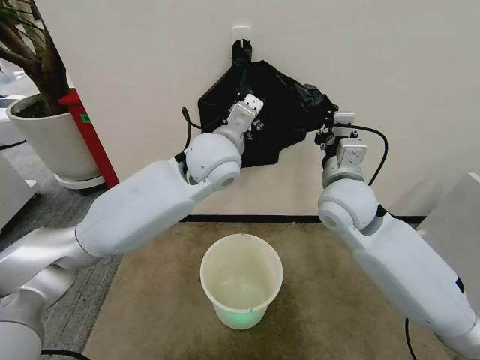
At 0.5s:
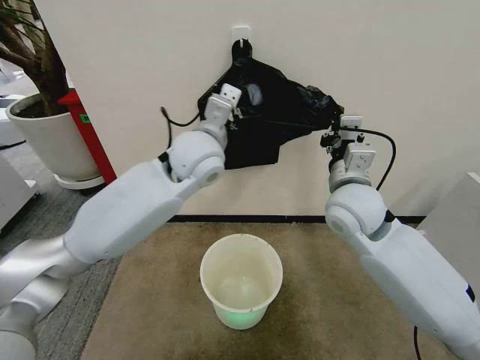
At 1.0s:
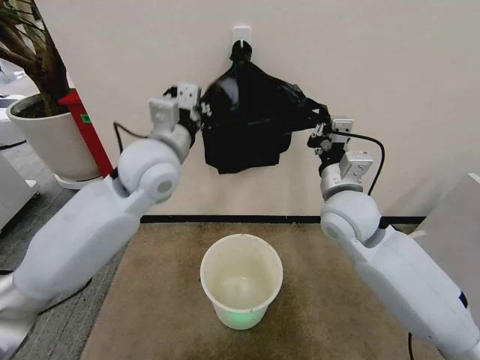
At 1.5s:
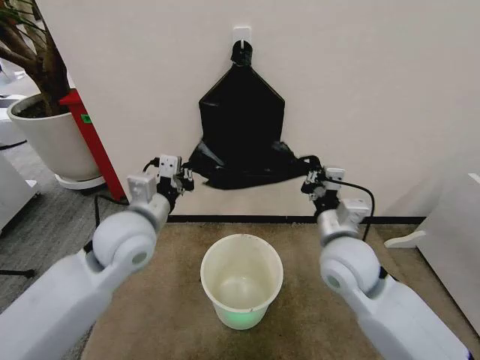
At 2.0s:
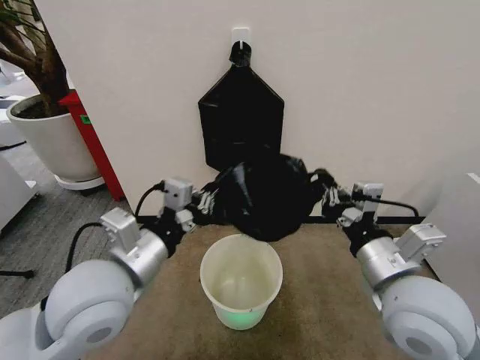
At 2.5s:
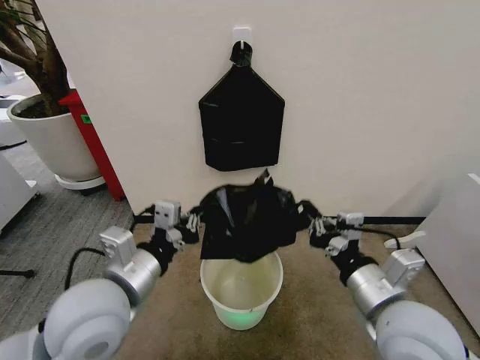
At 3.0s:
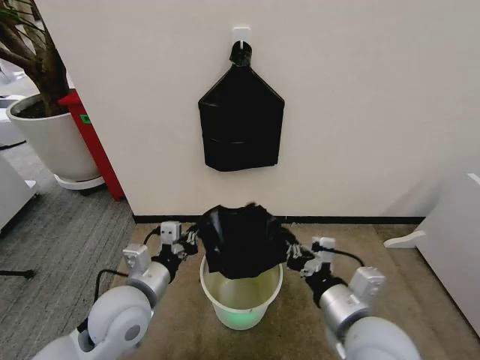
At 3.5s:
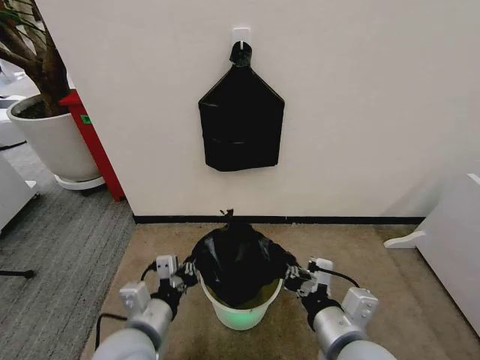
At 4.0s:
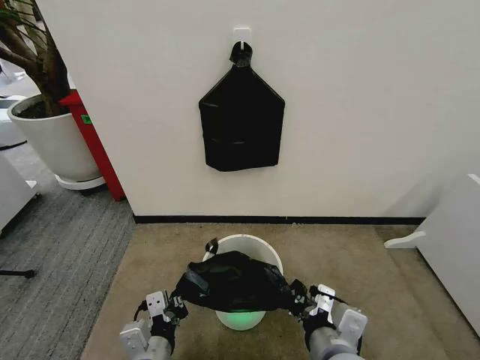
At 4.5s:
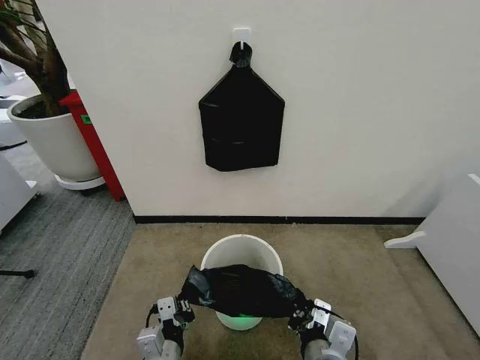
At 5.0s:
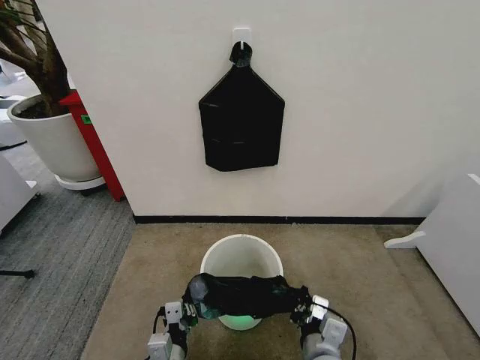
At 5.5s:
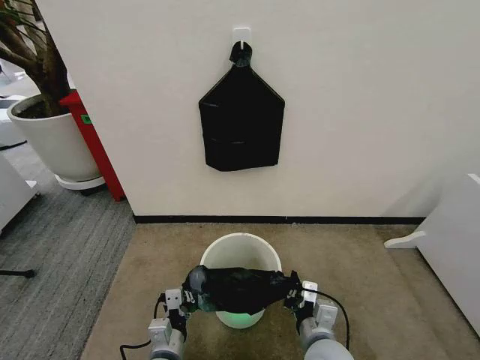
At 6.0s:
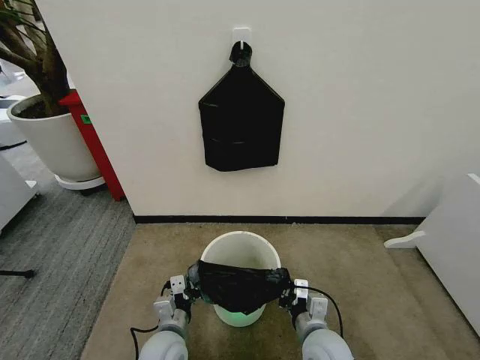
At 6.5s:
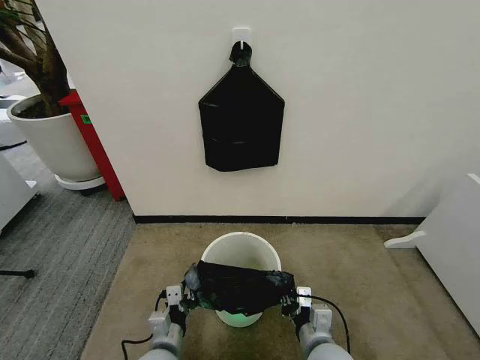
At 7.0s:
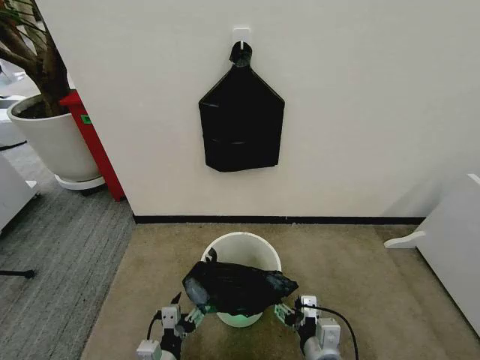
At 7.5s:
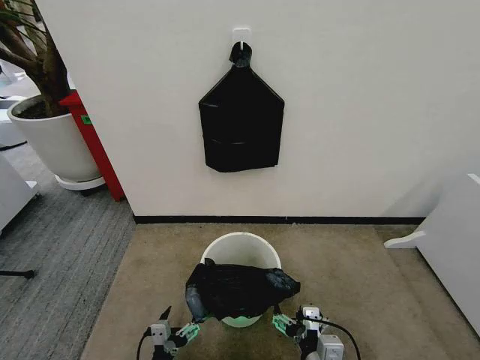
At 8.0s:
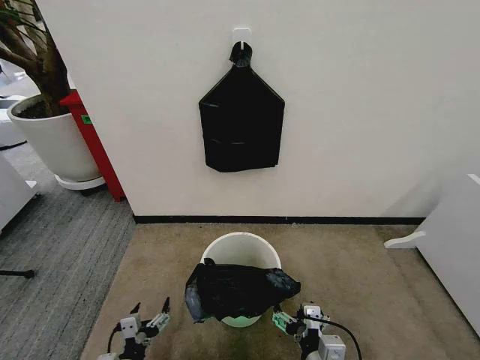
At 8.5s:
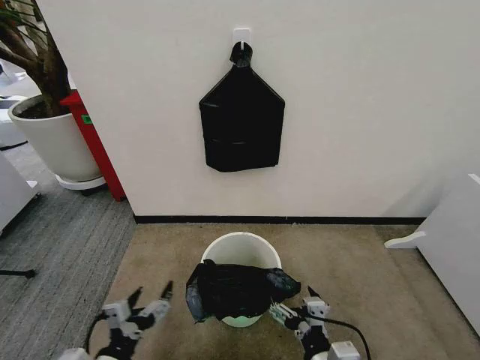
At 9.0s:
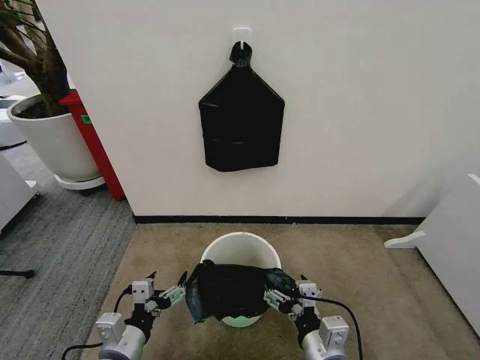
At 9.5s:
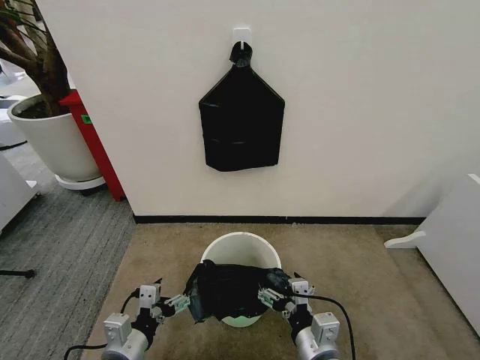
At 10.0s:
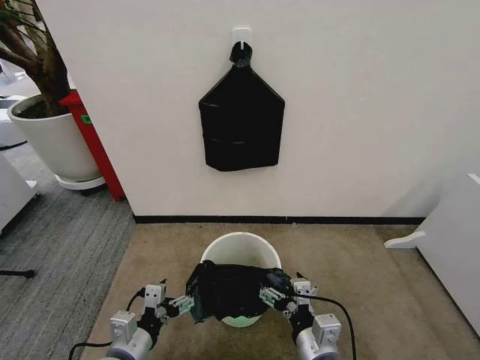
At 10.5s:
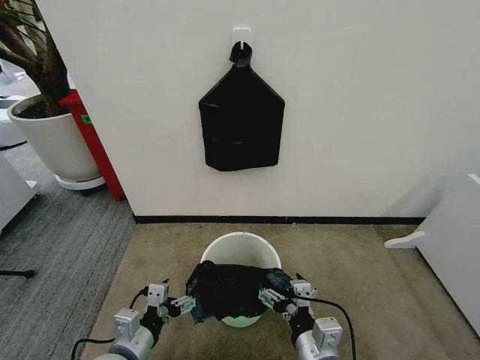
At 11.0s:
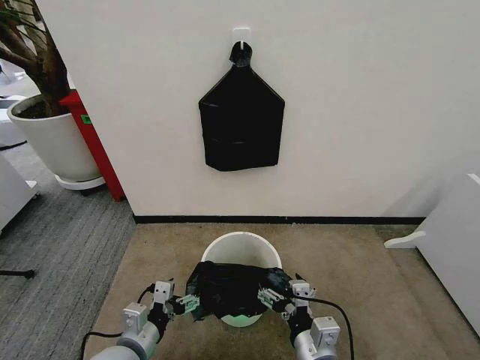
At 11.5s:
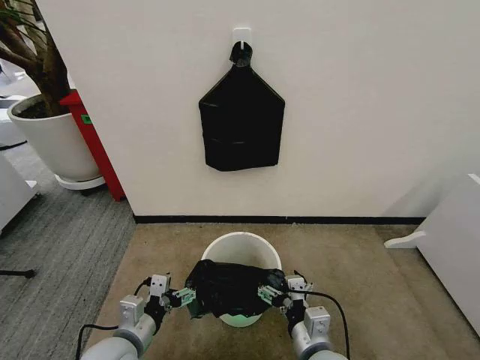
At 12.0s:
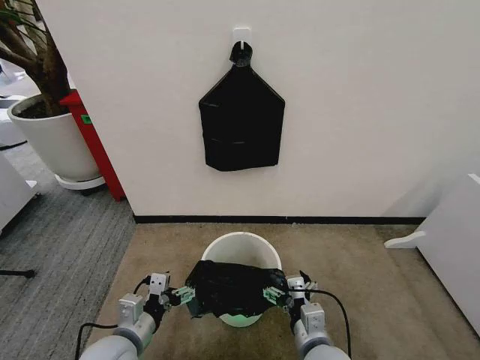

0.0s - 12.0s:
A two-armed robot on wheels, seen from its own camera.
Task of the whole recording: Place the garbage bag over the trash bin.
0.0s - 2.0s: The right gripper goes approximately 20 cm backward; the left gripper moves backward and to the left, roughly 25 cm, and closes.
2.0s - 4.0s: The left gripper moves downward and backward, some 20 cm. The right gripper travels downward, to the left and backward by about 15 cm.
4.0s - 6.0s: The grippers both shift downward and forward by about 15 cm.
6.0s - 8.0s: The left gripper travels backward and to the left by some 15 cm, and opens, while the right gripper goes roughly 10 cm backward, and opens up.
8.0s - 10.0s: The left gripper goes roughly 15 cm upward, while the right gripper moves roughly 5 cm.
10.0s - 12.0s: The grippers make only small movements.

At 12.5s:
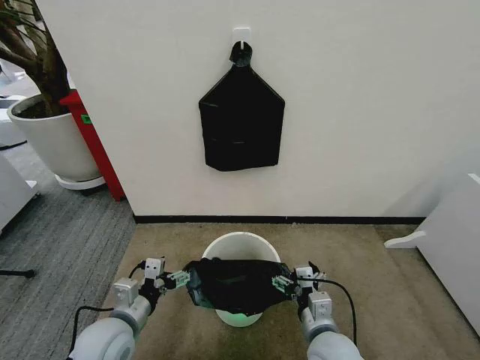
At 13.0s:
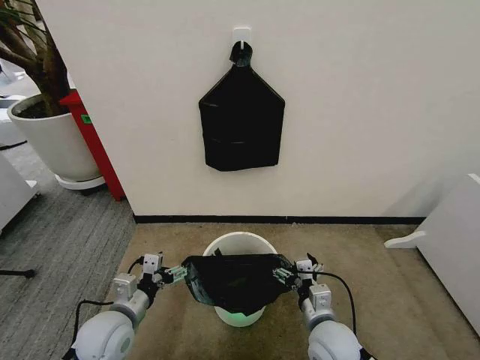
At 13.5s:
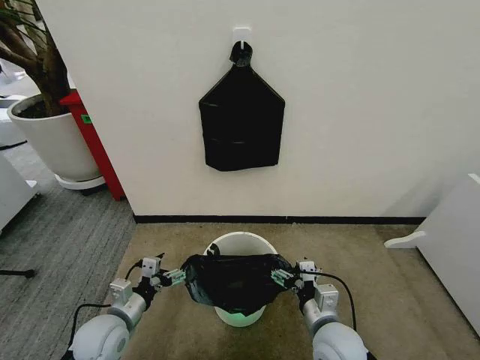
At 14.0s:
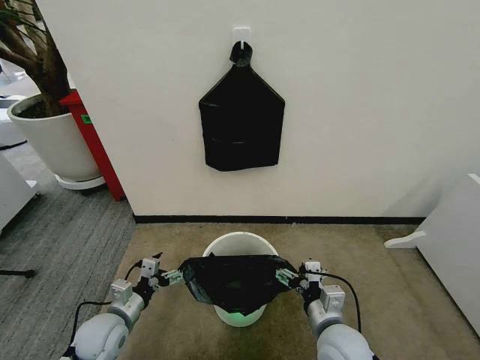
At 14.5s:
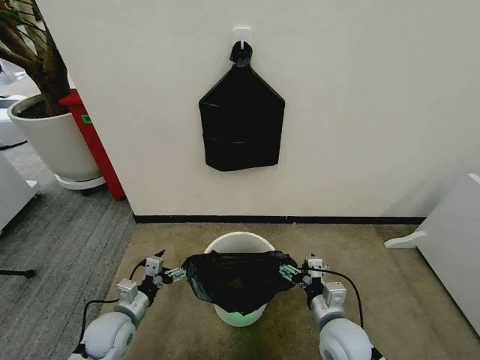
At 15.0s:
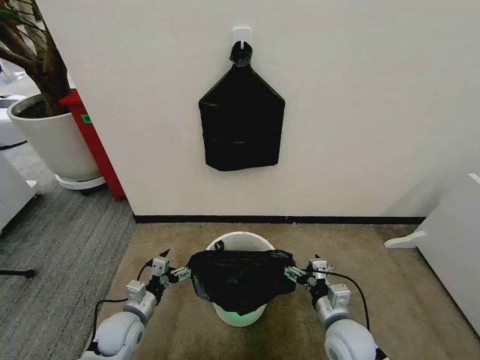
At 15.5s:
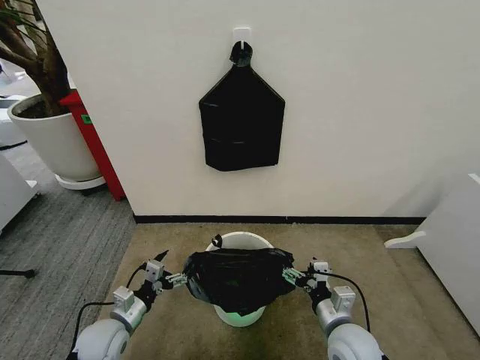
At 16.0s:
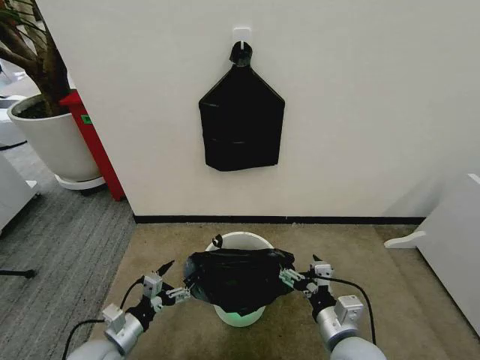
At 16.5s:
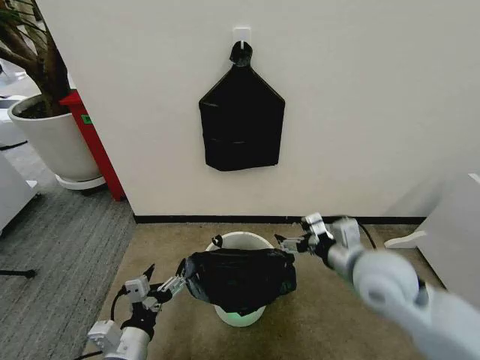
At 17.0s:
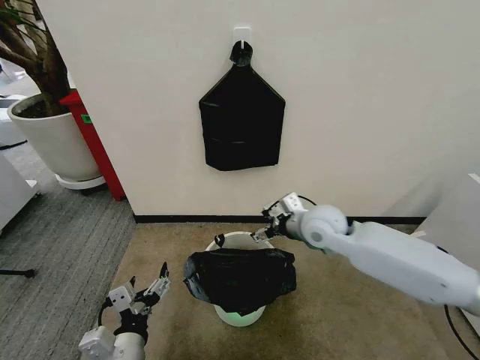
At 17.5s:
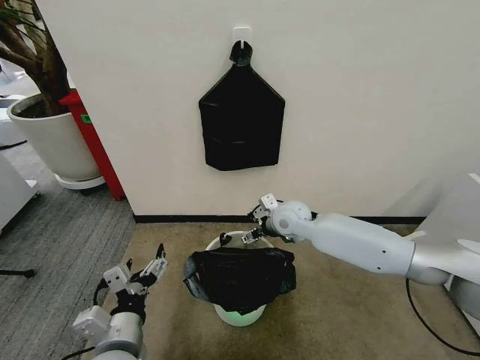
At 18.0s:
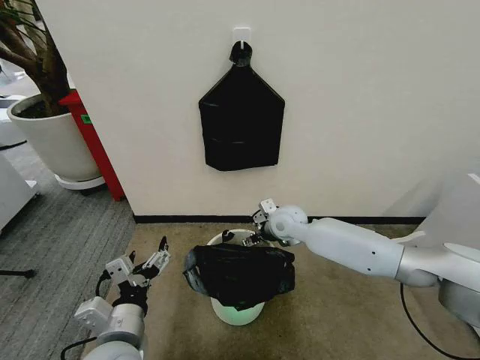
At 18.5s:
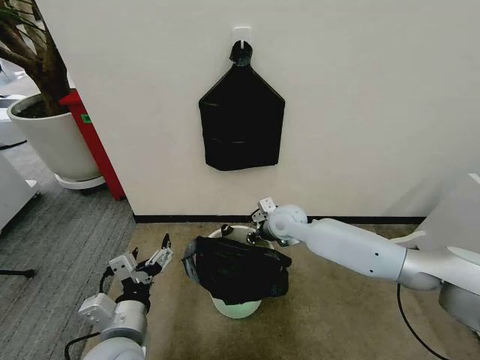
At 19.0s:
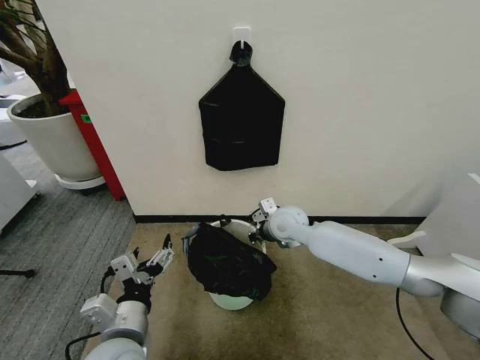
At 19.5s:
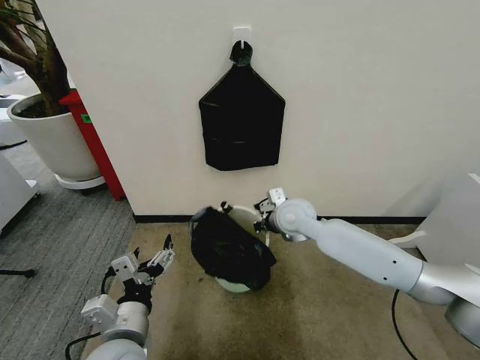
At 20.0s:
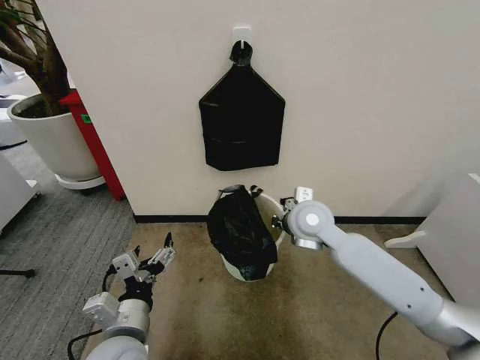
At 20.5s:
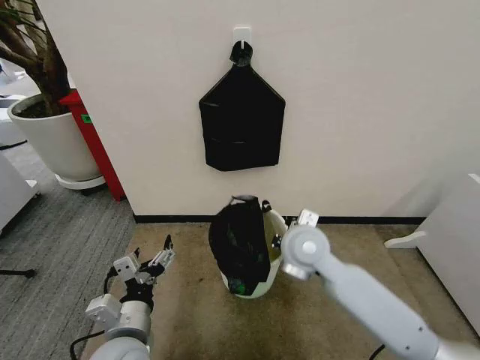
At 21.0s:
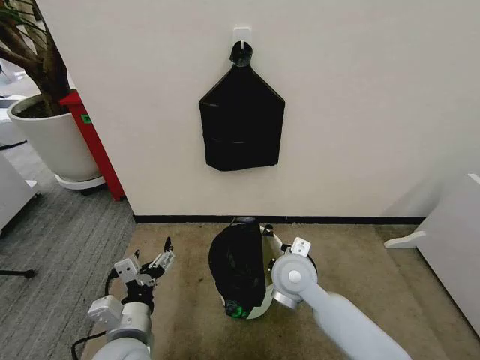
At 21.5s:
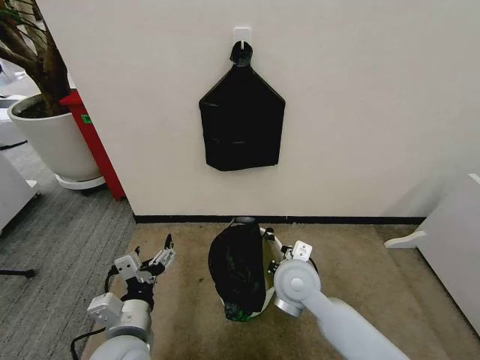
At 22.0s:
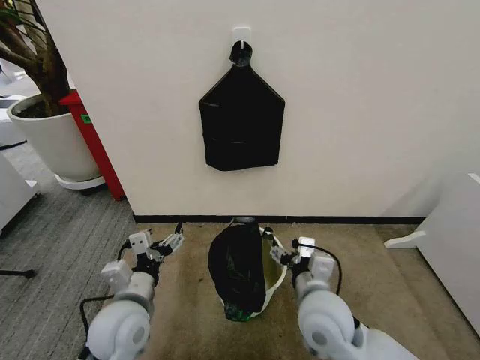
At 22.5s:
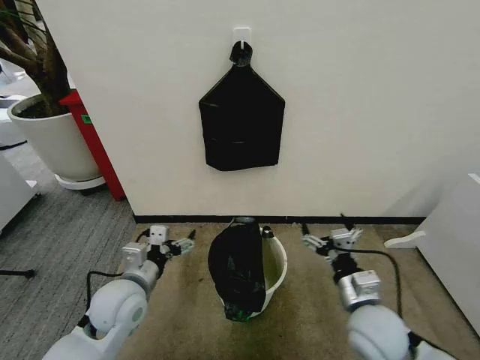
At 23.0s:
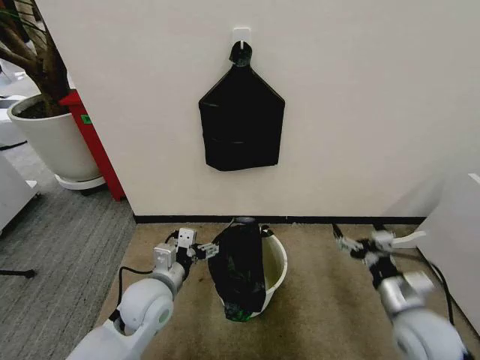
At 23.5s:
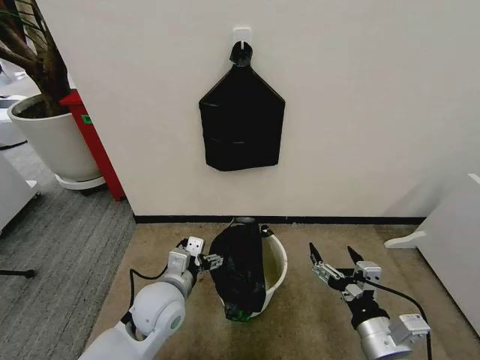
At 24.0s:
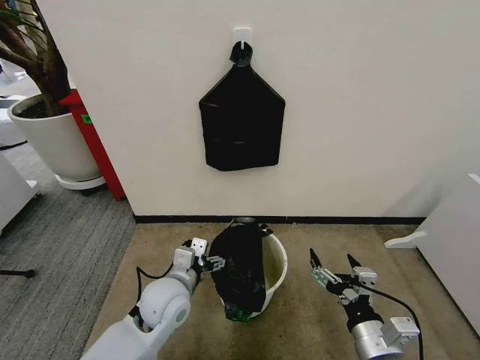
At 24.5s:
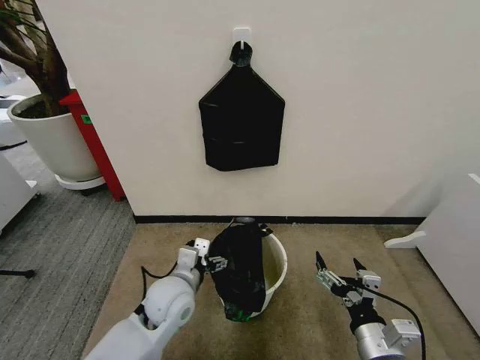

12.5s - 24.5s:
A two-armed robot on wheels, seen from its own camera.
Task of the whole recording: Place the garbage bag over the trash bin.
12.5s - 14.5s: The left gripper travels downward by roughly 10 cm. Meanwhile the right gripper moves approximately 5 cm.
14.5s - 16.5s: The left gripper shifts roughly 15 cm backward, upward and to the right. The right gripper shifts approximately 20 cm upward.
16.5s - 18.5s: The left gripper travels upward by roughly 5 cm; the right gripper heads forward, to the left and downward, covering approximately 25 cm, and closes its fingers.
18.5s - 20.5s: The right gripper goes about 15 cm backward and upward.
20.5s - 22.5s: The right gripper moves backward, to the right and downward, approximately 20 cm, and opens up; the left gripper moves forward, roughly 10 cm.
22.5s - 24.5s: The left gripper travels to the right by roughly 10 cm. The right gripper shifts roughly 10 cm backward.

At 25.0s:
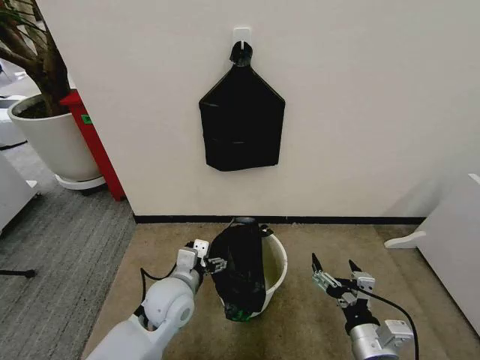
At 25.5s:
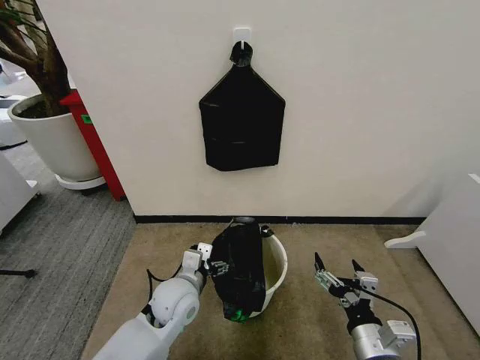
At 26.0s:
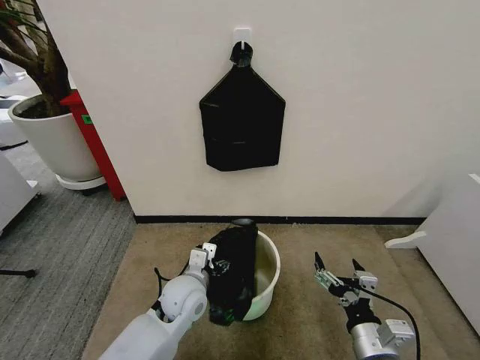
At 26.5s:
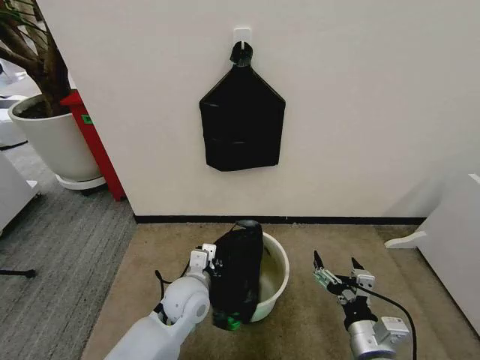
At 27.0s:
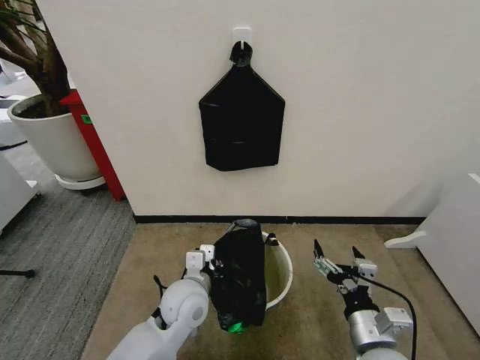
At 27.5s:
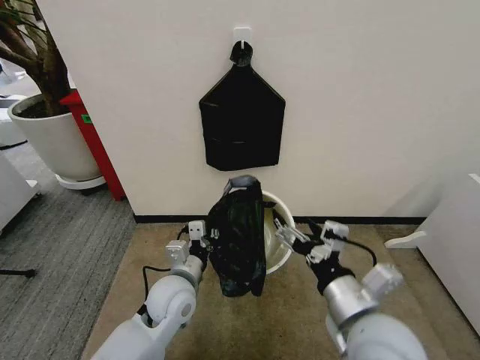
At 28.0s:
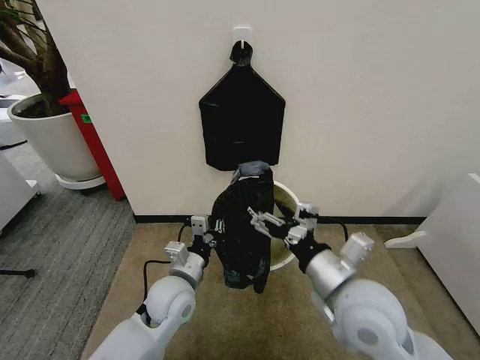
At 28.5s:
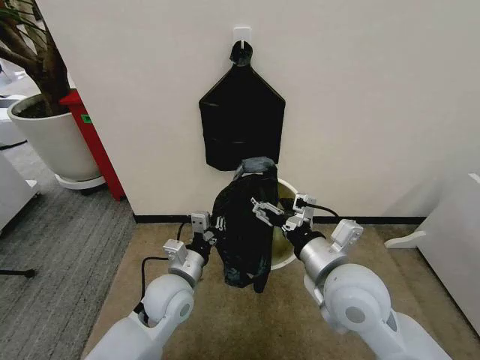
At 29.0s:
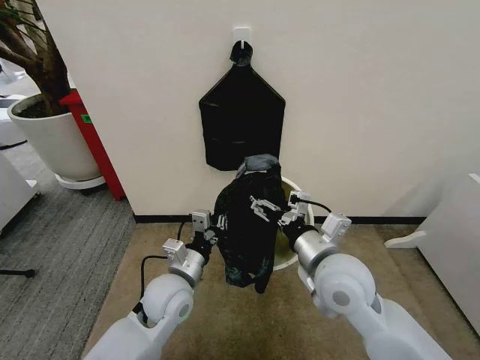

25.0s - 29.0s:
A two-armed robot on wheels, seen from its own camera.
Task of the whole recording: Place the garbage bag over the trash bin.
25.0s - 27.0s: The left gripper closes.
27.0s - 29.0s: The right gripper heads forward, upward and to the left, covering about 15 cm.
